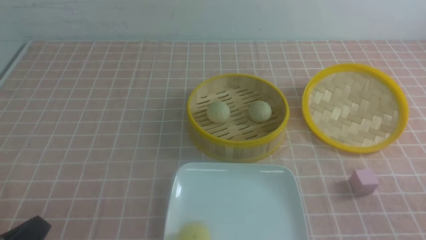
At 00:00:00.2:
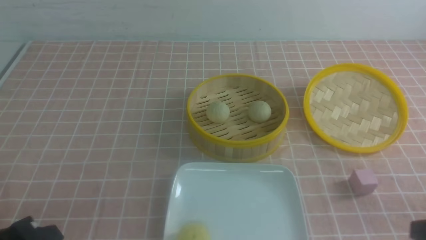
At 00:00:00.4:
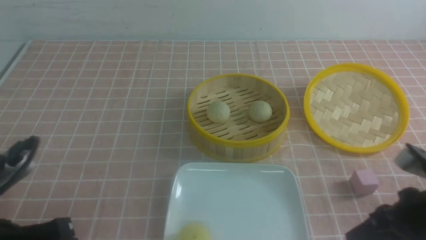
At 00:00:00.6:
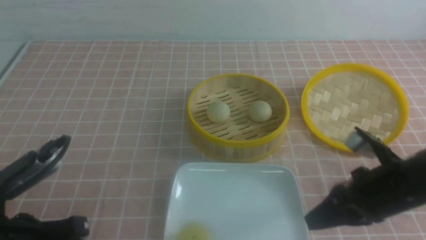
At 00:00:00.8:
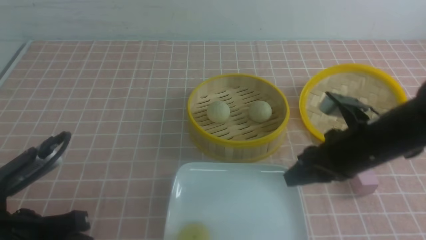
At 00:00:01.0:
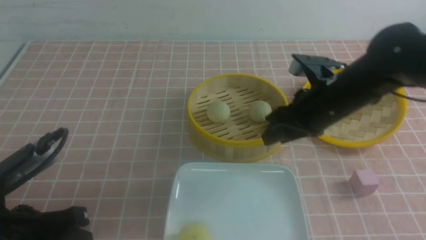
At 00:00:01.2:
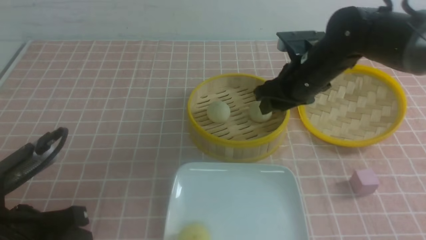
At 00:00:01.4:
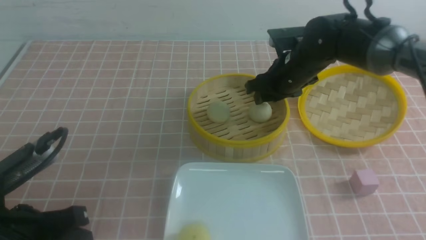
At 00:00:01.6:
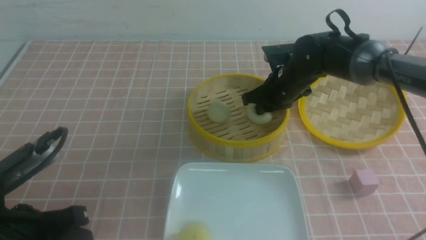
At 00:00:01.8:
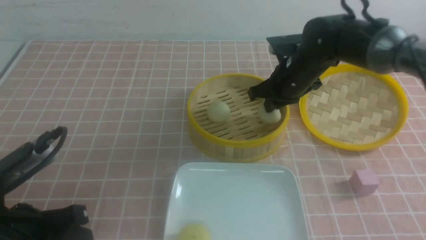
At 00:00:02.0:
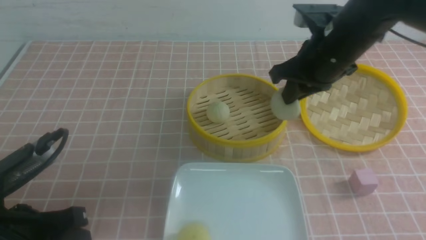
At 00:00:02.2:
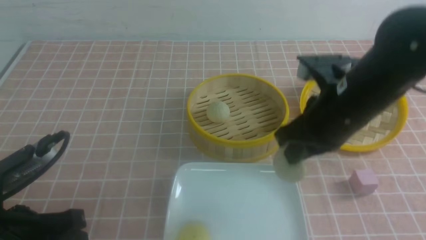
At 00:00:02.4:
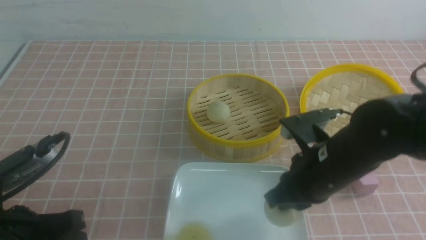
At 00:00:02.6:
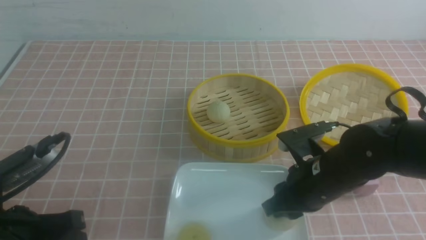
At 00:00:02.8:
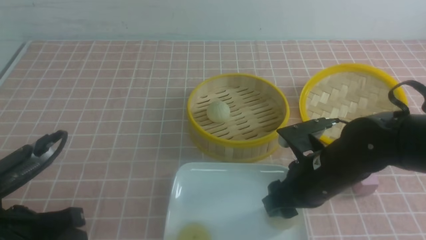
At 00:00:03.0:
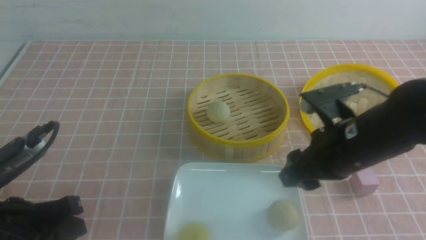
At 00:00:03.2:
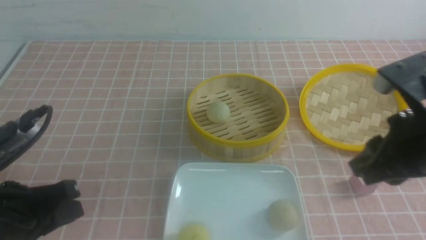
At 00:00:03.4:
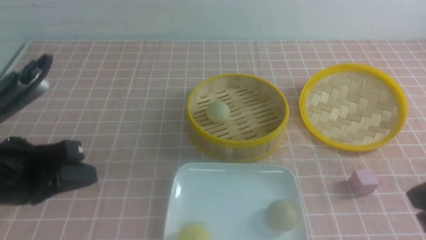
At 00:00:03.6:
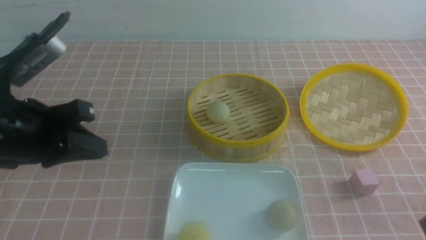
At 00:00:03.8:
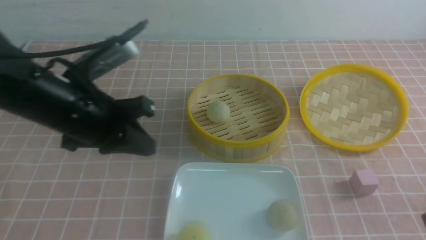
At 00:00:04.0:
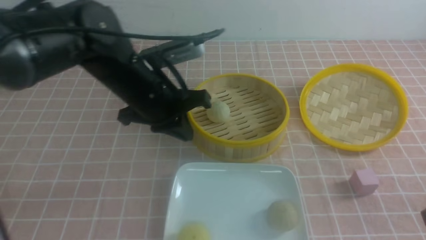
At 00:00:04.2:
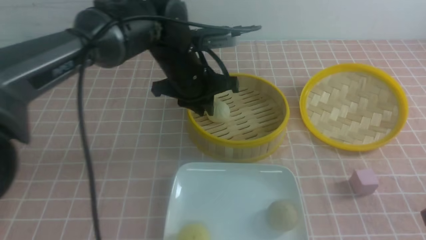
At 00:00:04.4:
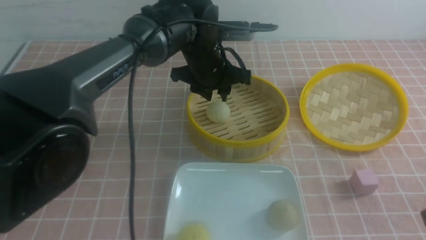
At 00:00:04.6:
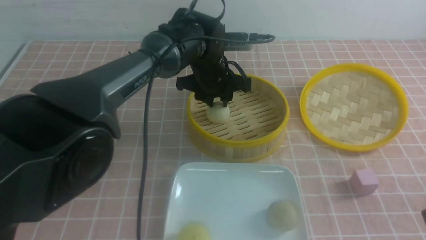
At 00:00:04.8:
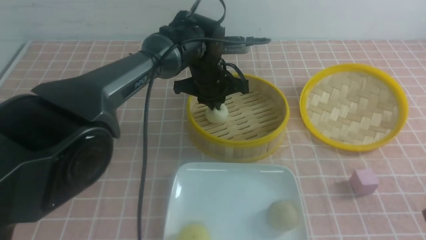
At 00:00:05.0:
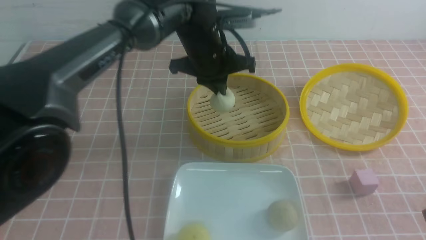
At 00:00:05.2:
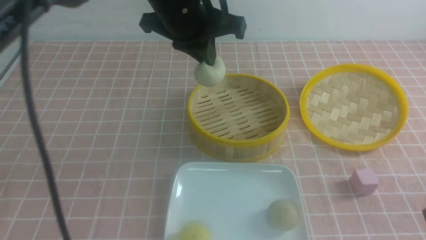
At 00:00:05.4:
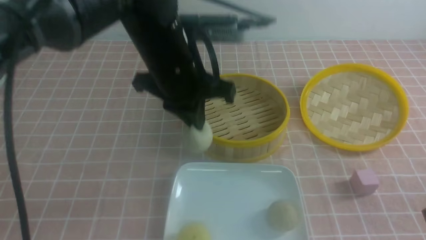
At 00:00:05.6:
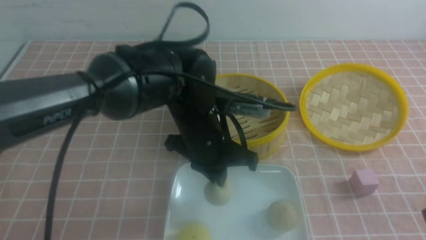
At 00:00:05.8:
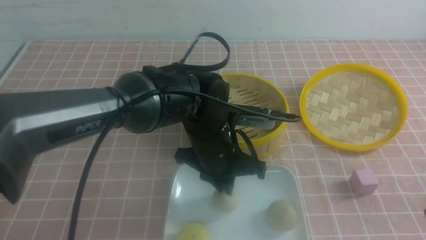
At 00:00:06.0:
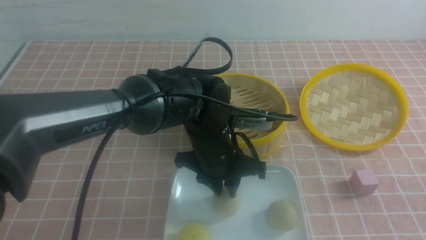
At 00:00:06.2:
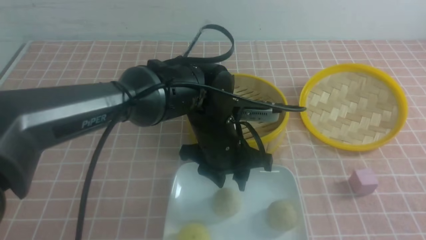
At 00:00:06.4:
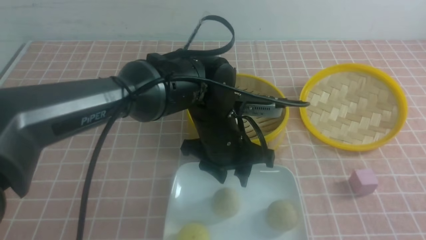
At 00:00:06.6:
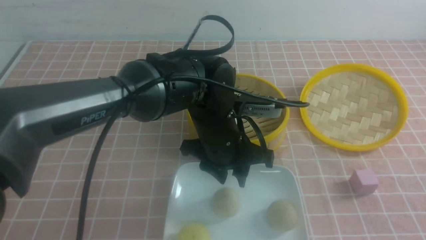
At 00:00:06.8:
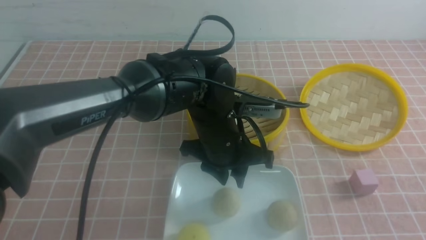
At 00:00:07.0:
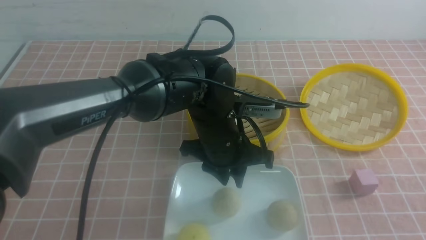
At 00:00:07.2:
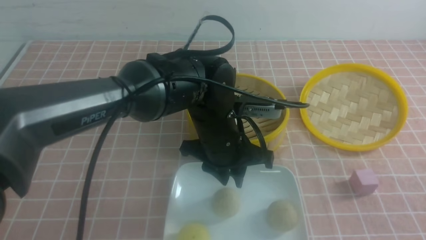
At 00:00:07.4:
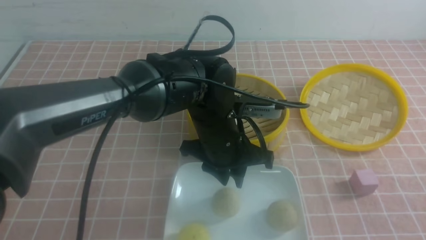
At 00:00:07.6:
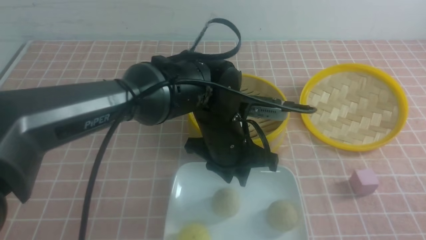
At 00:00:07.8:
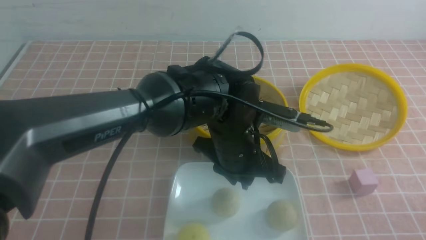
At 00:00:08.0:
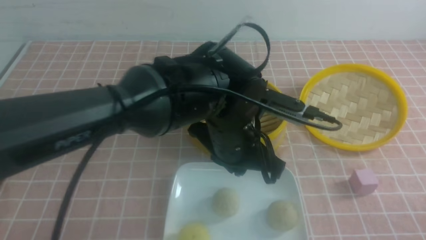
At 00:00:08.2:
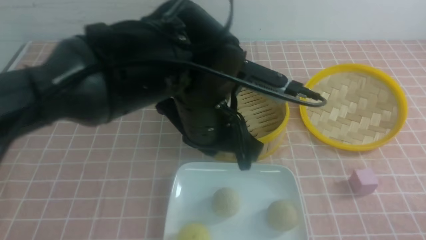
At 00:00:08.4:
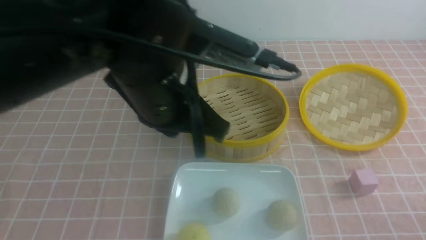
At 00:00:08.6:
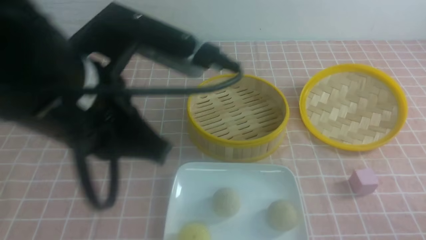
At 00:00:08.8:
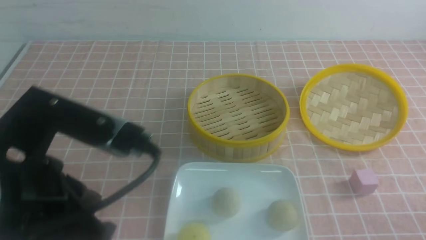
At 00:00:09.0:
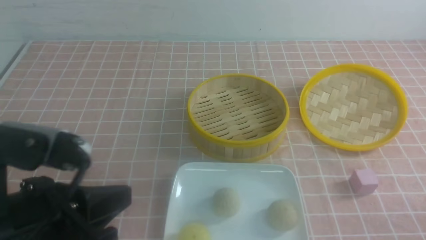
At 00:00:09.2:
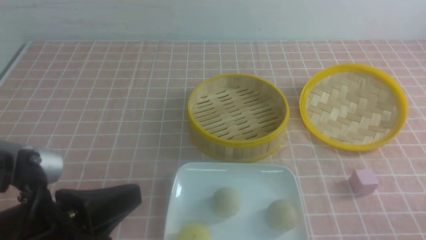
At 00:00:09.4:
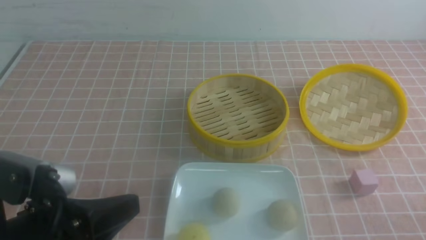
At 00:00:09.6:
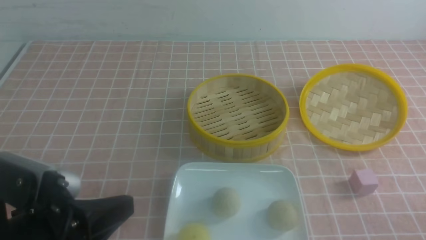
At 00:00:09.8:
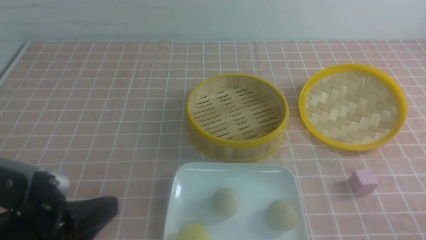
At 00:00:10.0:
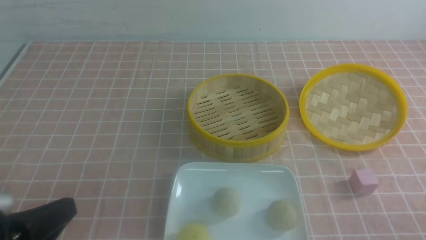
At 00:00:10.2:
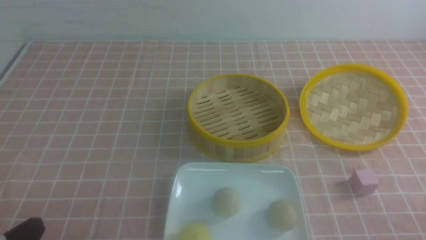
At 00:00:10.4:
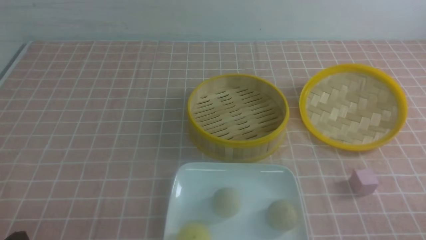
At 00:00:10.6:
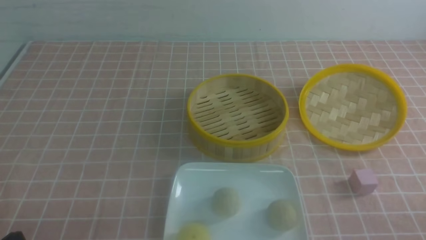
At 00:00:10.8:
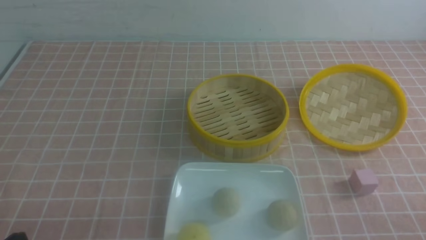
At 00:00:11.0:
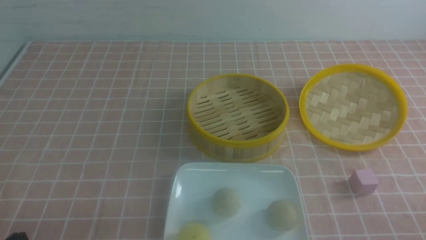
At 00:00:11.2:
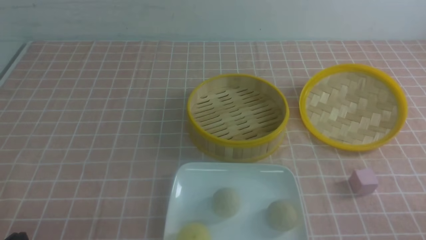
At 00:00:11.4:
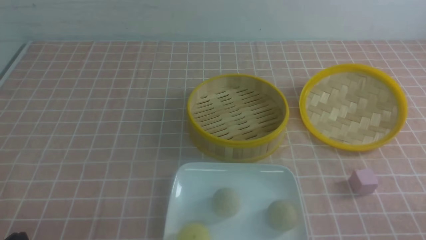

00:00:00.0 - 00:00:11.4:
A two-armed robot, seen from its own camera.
Step, 00:00:01.8 - 00:00:02.8: use the right arm to put the steamed stuffed bun into the plate.
Step, 00:00:03.0 - 00:00:04.8: use the left arm to grab the steamed stuffed bun that is closest to it.
Step, 00:00:05.0 - 00:00:06.0: use the left arm to put the steamed stuffed bun into the plate.
00:00:00.0 - 00:00:01.4: The right gripper is displaced forward and to the left by about 40 cm, and opens. The left gripper goes roughly 10 cm forward.
00:00:01.4 - 00:00:02.8: The right gripper moves backward, about 20 cm, and closes, then reopens.
00:00:02.8 - 00:00:04.2: The left gripper shifts approximately 30 cm forward and to the right, while the right gripper heads backward, to the right and upward, covering some 20 cm, and closes.
00:00:04.2 - 00:00:05.6: The left gripper heads backward, covering approximately 10 cm, and closes its fingers.
00:00:05.6 - 00:00:07.2: The left gripper opens its fingers. The right gripper travels upward and back again, some 5 cm each way.
00:00:07.2 - 00:00:08.6: The left gripper is displaced upward, to the left and backward by about 25 cm, and closes. Meanwhile the right gripper goes about 10 cm downward.
00:00:08.6 - 00:00:10.0: The left gripper shifts roughly 20 cm downward, to the left and backward.
00:00:10.0 - 00:00:11.4: The left gripper travels downward by some 5 cm.

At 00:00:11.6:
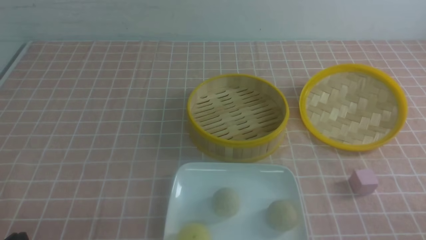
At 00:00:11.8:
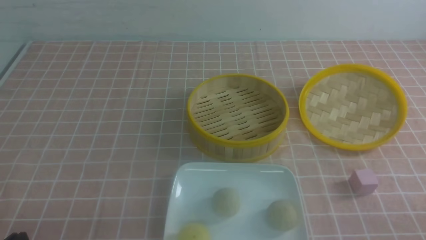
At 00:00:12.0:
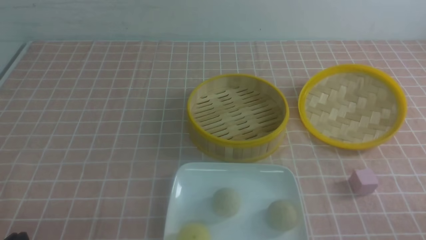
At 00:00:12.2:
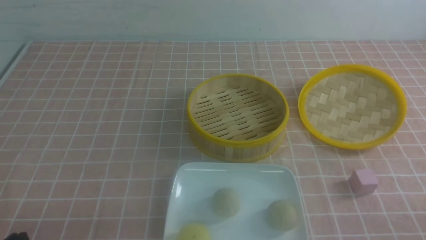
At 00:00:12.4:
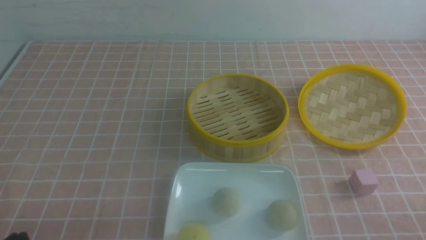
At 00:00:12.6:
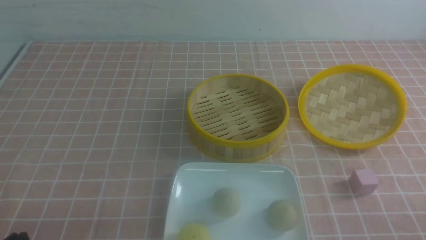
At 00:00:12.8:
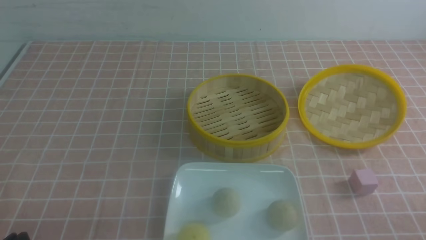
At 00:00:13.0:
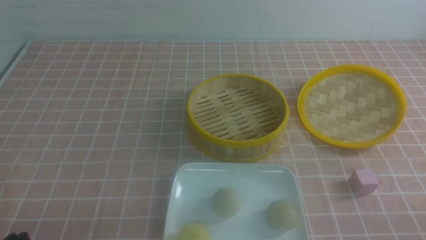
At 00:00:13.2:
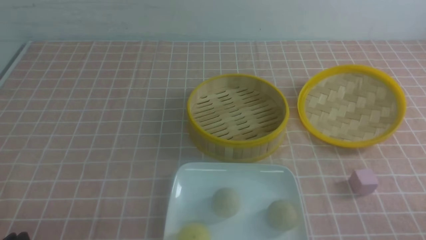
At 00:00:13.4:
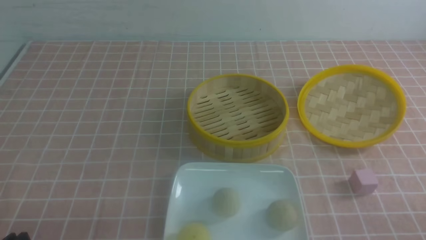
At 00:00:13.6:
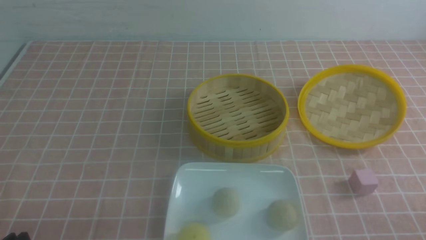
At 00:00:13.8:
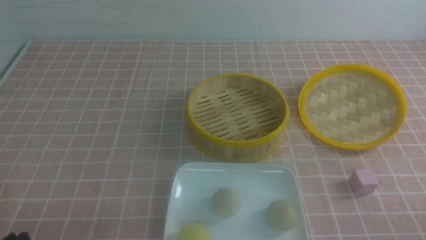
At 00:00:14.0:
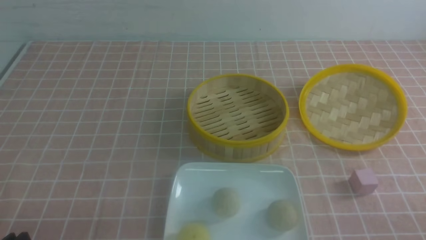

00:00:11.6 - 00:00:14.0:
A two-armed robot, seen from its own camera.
00:00:11.6 - 00:00:14.0: Both grippers stay about where they are.
